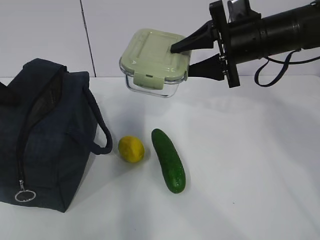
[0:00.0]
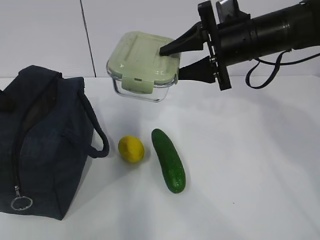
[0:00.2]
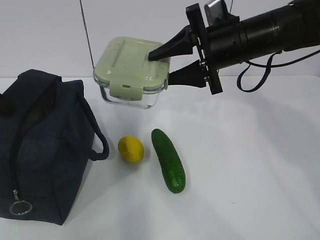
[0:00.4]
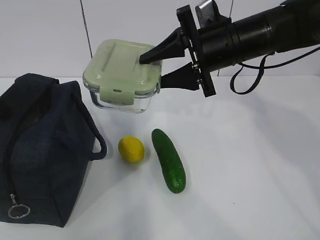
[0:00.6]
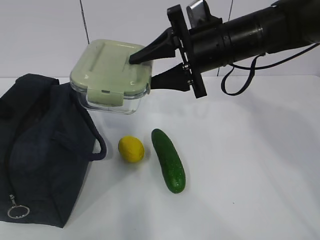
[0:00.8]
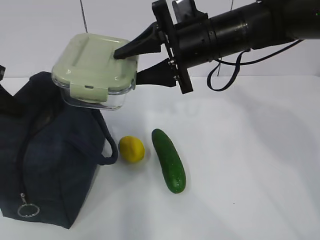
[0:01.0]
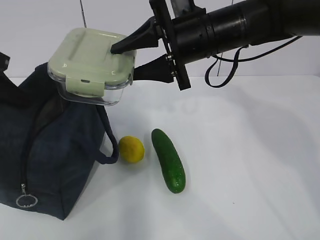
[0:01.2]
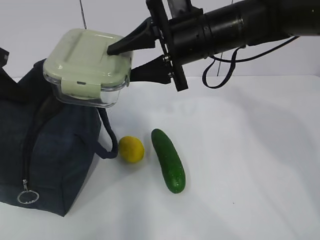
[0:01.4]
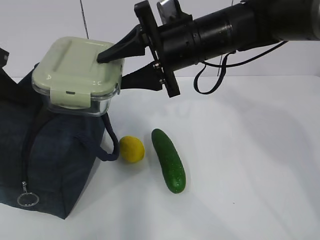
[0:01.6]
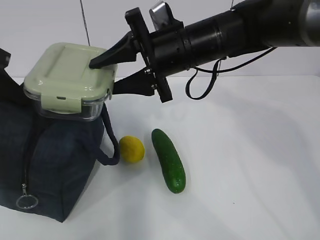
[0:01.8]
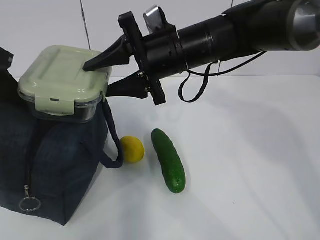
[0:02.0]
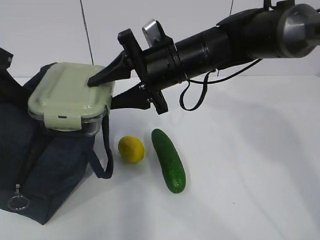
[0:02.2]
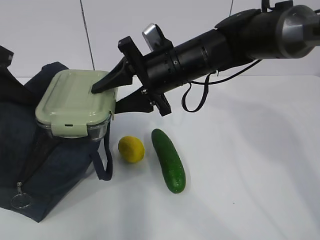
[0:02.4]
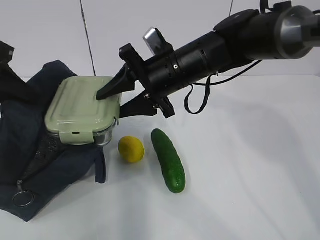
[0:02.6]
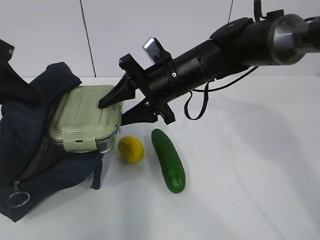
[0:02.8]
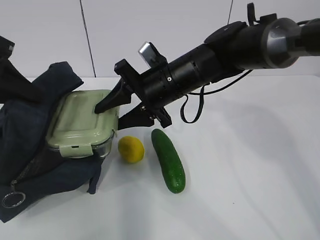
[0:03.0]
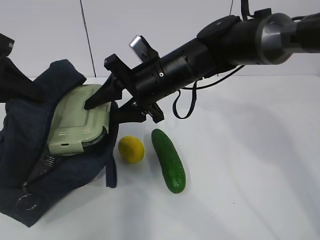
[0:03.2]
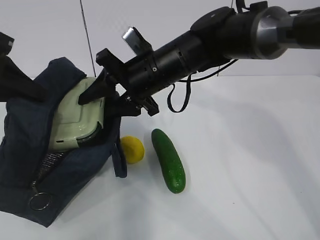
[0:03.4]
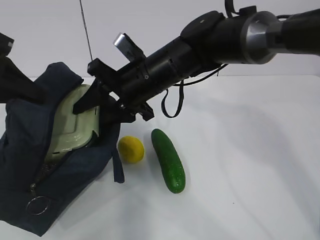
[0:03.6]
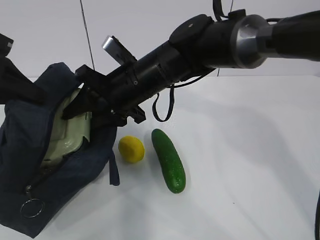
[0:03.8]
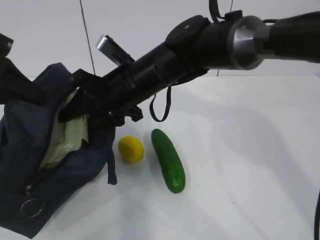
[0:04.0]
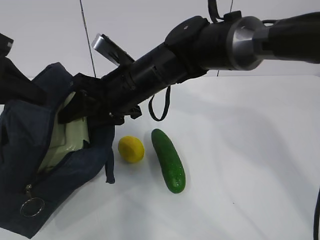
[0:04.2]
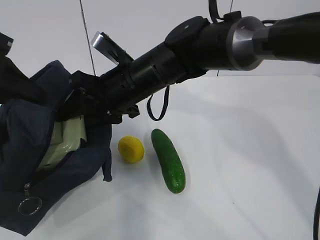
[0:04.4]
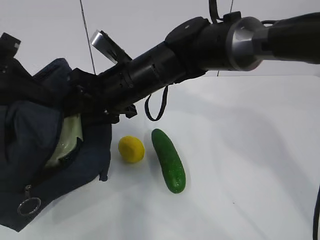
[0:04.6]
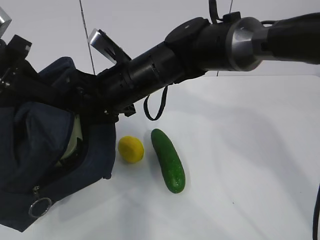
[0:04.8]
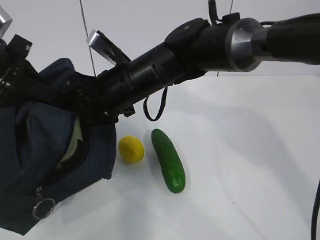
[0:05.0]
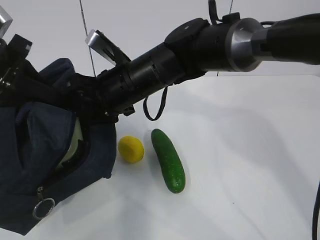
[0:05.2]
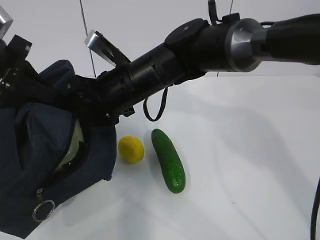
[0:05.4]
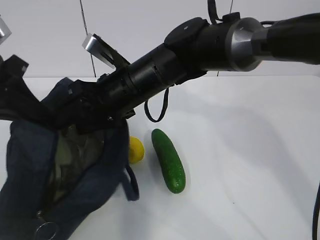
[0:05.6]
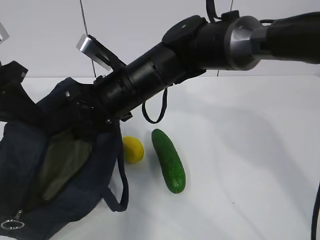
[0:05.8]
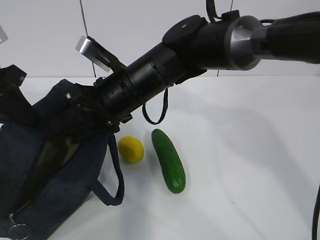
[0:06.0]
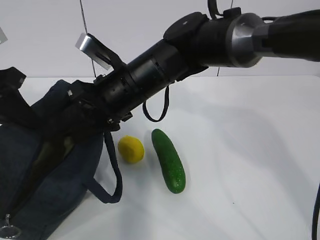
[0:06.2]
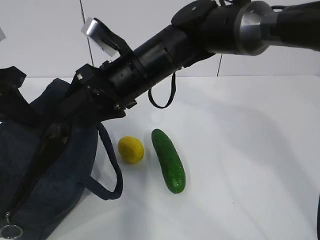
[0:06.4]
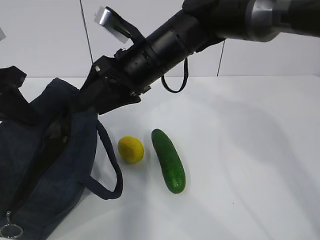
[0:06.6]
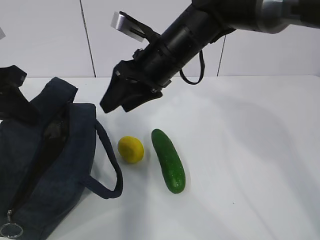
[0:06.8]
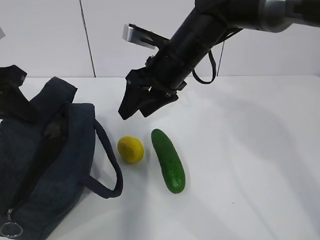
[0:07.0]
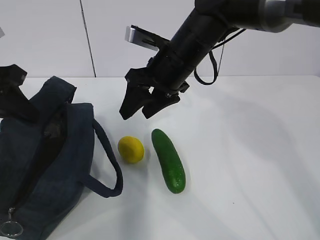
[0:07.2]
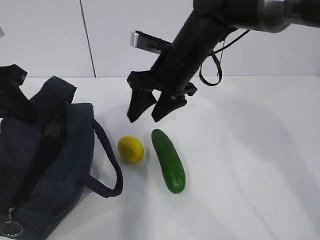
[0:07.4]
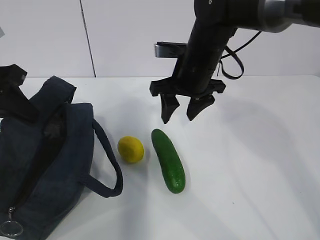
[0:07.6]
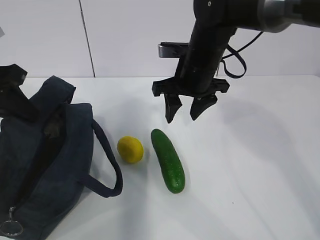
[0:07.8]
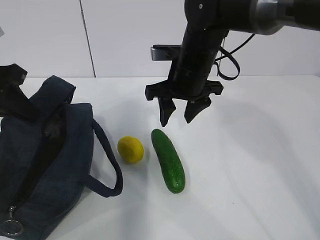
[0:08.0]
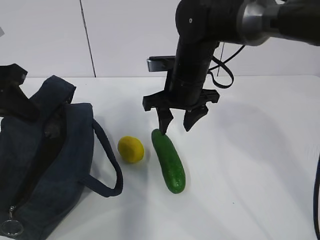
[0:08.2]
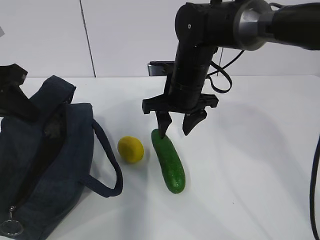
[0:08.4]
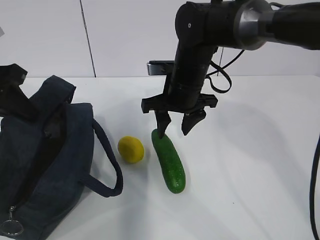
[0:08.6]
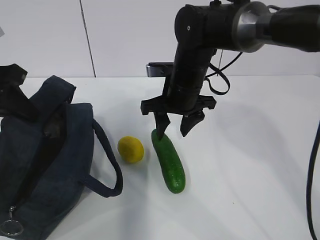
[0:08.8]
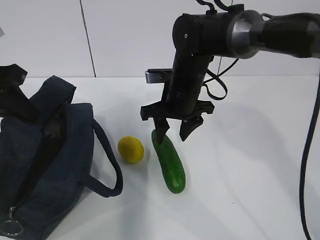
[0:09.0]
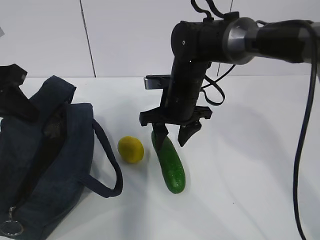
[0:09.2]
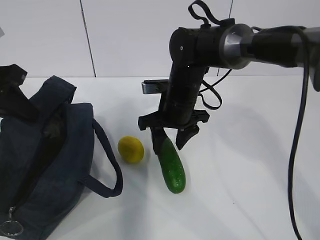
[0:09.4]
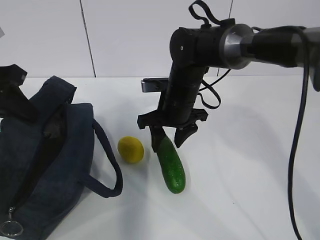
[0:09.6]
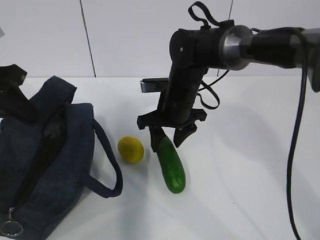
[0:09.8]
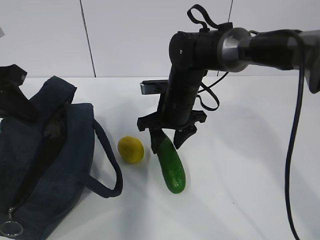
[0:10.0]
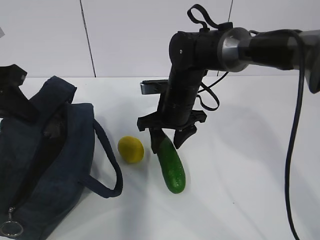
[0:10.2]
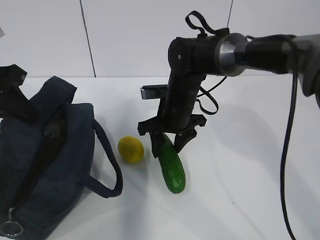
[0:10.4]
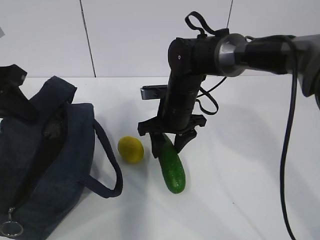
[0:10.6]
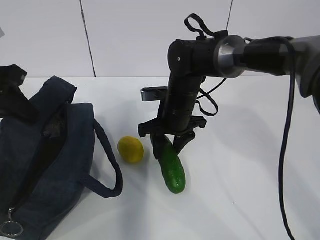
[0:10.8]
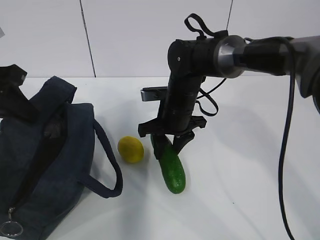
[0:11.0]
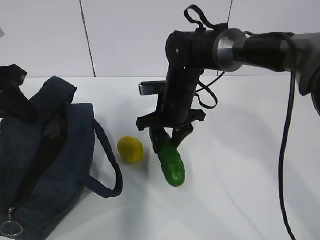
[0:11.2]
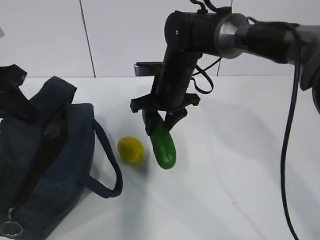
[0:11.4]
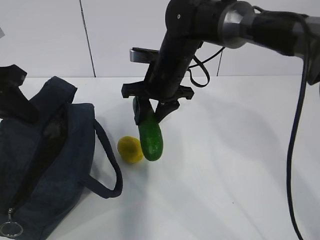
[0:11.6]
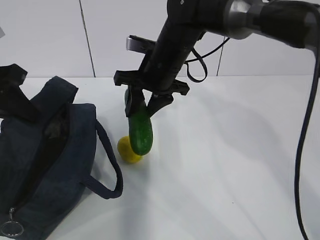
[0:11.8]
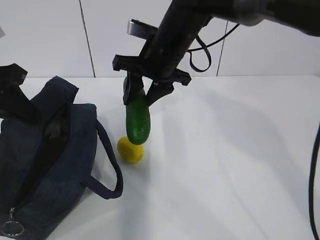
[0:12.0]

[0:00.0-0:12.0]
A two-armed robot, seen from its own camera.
Step, 0:01.0 to 0:05.0: Grab the cucumber with your right hand.
Step, 0:05.2 to 0:08.4: Place it into the bag with your right hand.
0:00.0 to 0:01.6: The right gripper heads to the left, covering roughly 10 cm.
0:01.6 to 0:03.0: The right gripper travels downward by about 5 cm.
0:03.0 to 0:04.4: The right gripper shifts about 5 cm to the left.
0:04.4 to 0:06.0: There are only small adjustments of the grippers.
0:06.0 to 0:07.6: The right gripper goes some 10 cm to the right and forward.
0:07.6 to 0:09.0: The right gripper changes place by some 5 cm.
0:09.0 to 0:10.4: The grippers move only a little.
0:10.4 to 0:12.0: The right gripper goes approximately 10 cm upward.

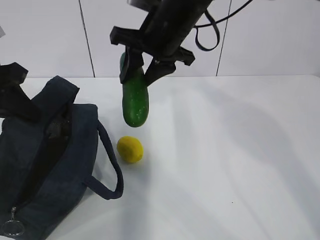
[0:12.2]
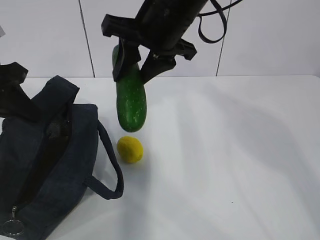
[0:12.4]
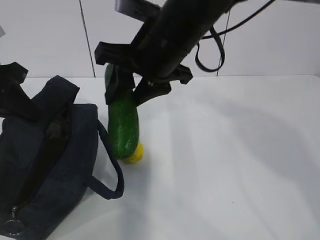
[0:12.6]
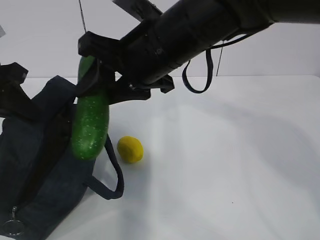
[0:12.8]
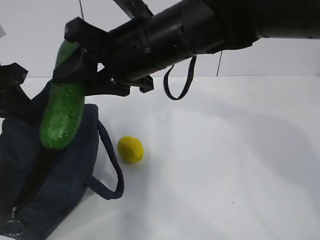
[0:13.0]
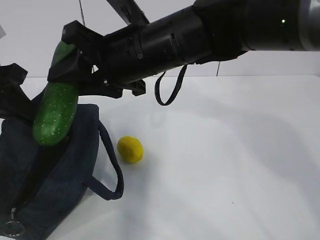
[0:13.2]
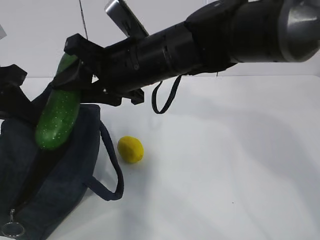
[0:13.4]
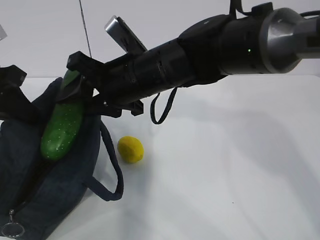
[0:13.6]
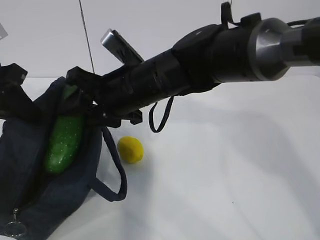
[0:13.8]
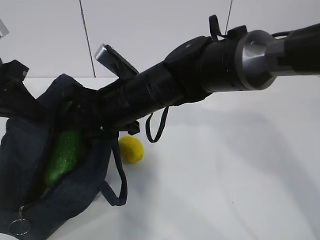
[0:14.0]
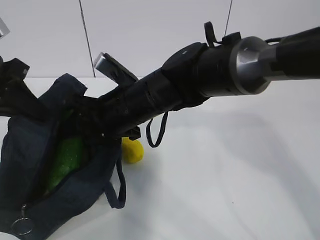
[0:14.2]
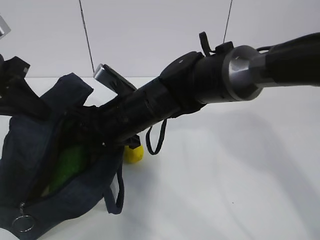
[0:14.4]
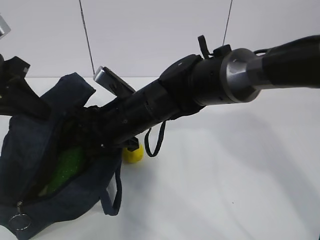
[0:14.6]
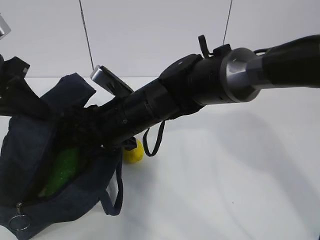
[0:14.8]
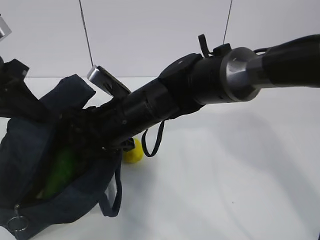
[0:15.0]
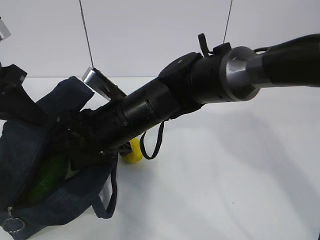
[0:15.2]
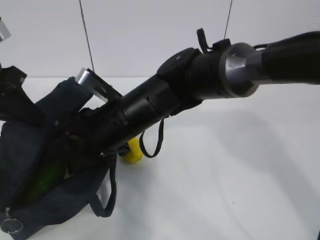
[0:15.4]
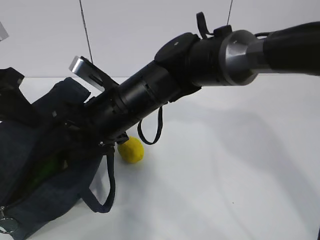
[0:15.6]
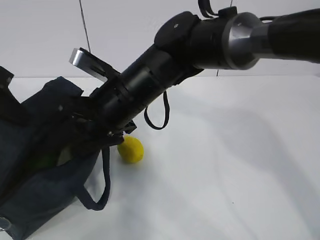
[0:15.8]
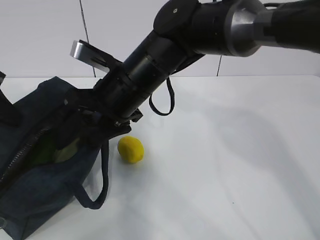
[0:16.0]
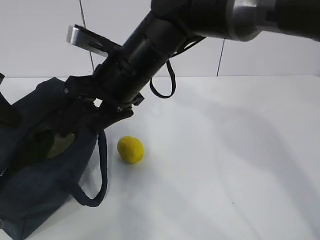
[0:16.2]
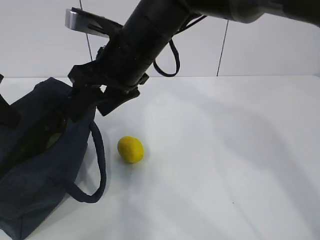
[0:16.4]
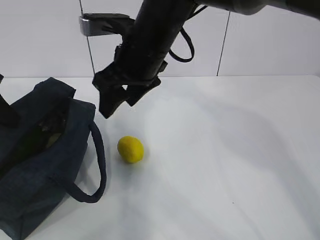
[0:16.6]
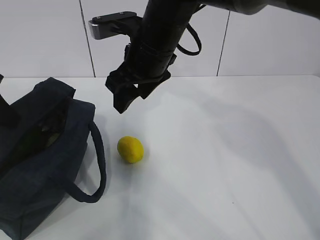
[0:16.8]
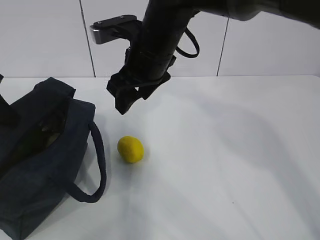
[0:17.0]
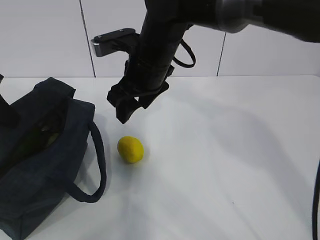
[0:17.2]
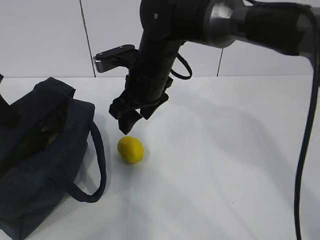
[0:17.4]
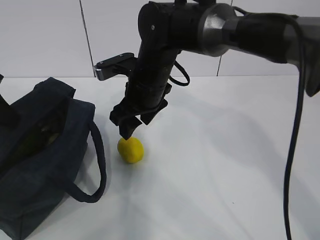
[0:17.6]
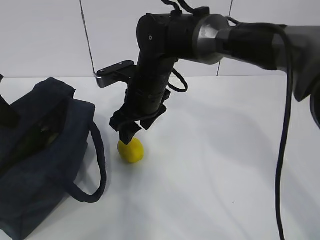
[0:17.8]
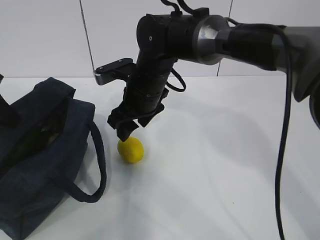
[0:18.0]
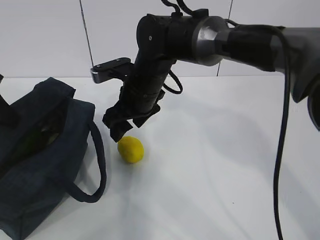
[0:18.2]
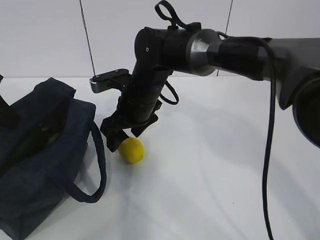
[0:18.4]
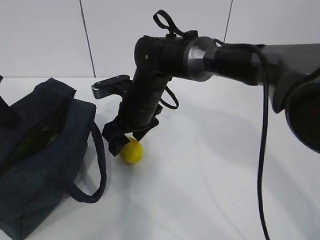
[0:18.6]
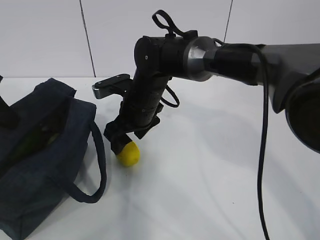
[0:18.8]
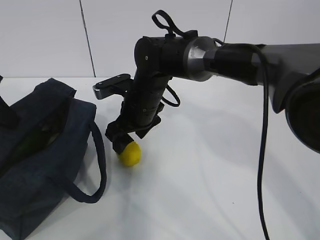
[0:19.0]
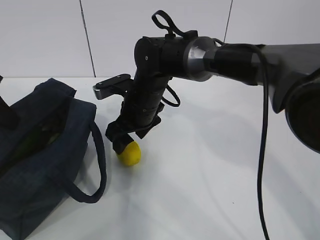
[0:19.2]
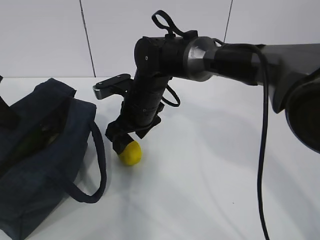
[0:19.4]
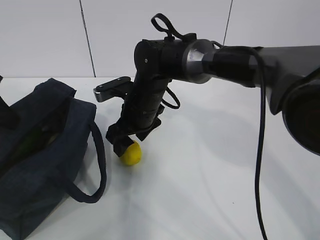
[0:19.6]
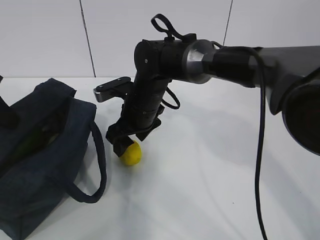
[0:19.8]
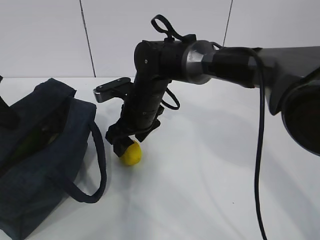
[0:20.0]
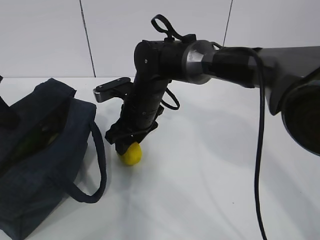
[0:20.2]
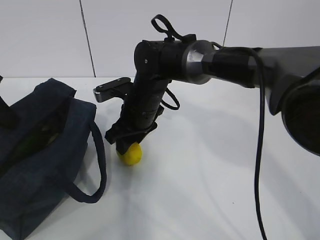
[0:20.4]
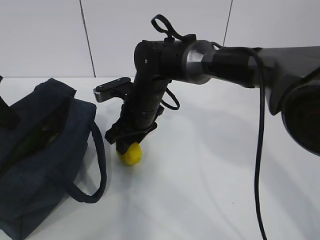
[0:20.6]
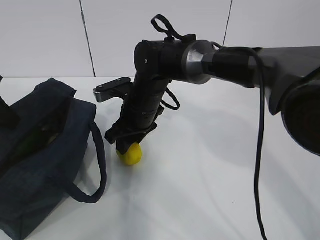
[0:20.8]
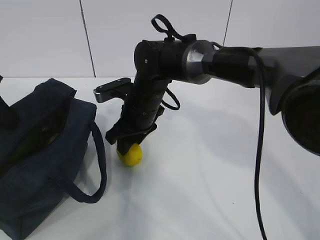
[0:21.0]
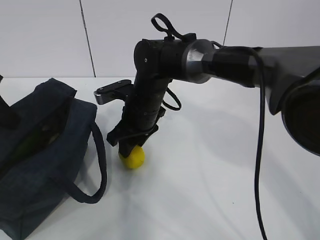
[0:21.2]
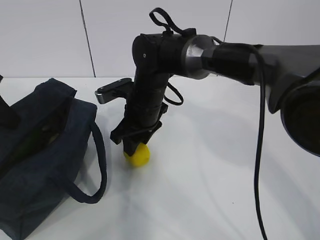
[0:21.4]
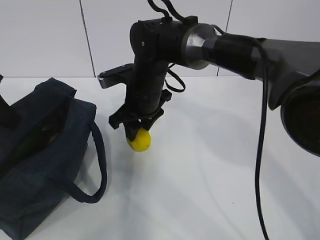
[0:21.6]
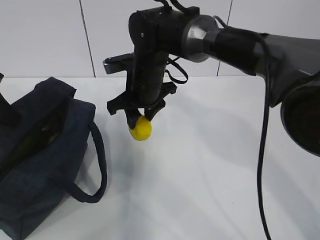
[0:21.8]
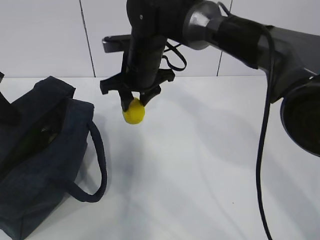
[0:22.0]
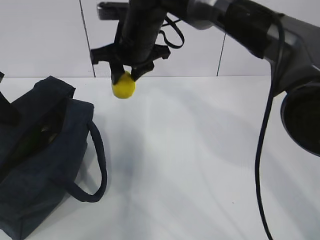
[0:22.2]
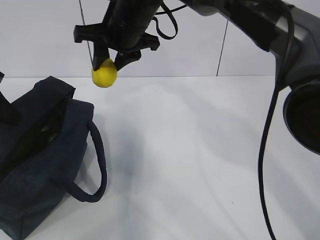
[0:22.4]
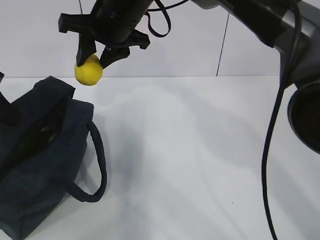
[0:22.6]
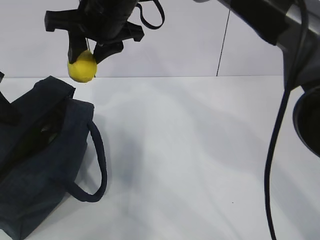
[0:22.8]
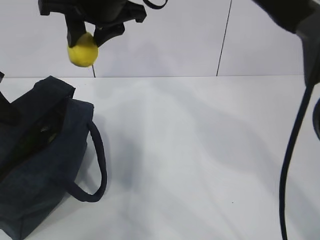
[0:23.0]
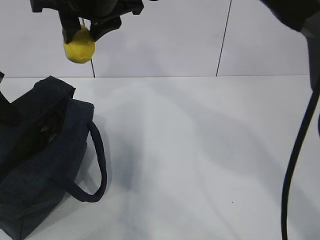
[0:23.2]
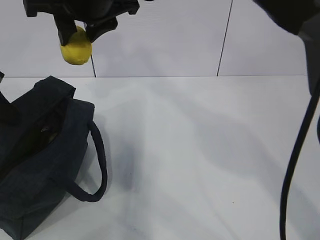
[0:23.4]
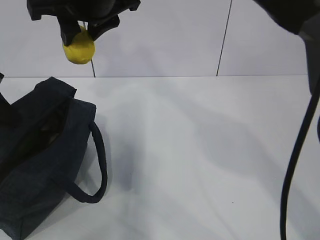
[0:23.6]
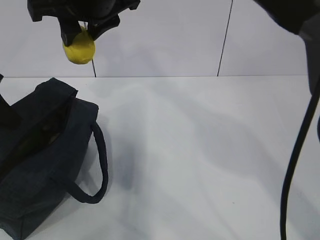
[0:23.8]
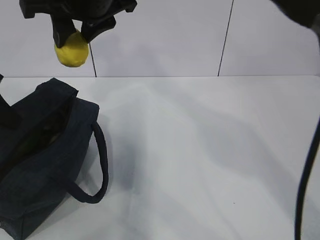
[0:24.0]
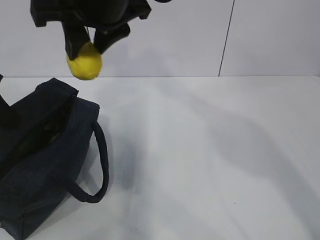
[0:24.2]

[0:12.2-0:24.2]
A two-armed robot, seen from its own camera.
Step, 0:18.6 to 0:20.2: Grab the lunch bag with your right hand.
0:12.2 to 0:13.8: The right gripper goes about 10 cm downward, backward and to the left.
0:15.2 to 0:16.6: The right gripper travels upward by some 10 cm.
0:16.6 to 0:18.2: The right gripper shifts approximately 10 cm downward.
0:19.8 to 0:21.2: The right gripper closes.
0:21.2 to 0:22.6: The right gripper is displaced upward by roughly 15 cm.
0:22.6 to 0:24.2: The right gripper moves backward and upward, approximately 10 cm.
